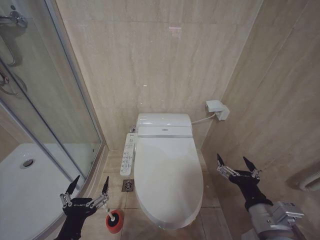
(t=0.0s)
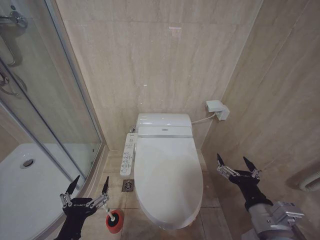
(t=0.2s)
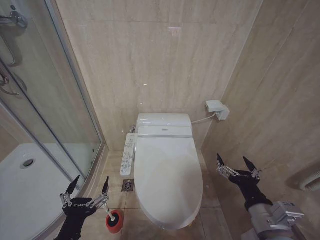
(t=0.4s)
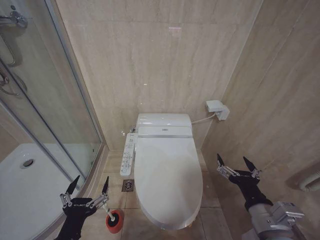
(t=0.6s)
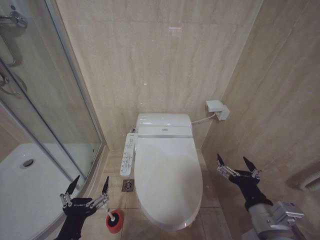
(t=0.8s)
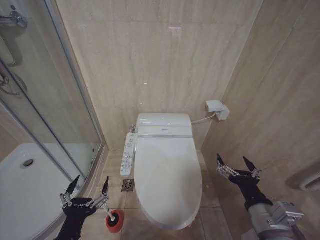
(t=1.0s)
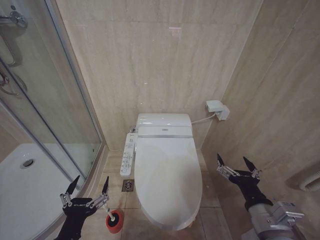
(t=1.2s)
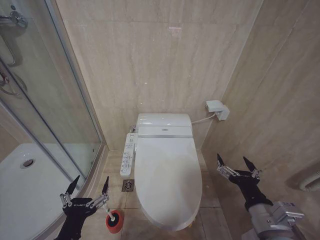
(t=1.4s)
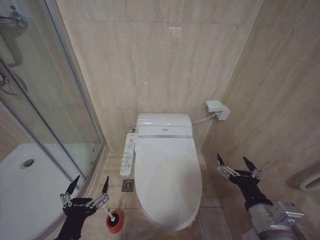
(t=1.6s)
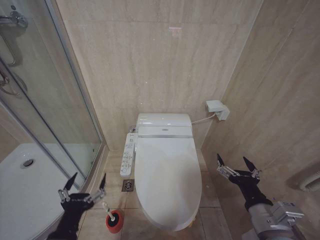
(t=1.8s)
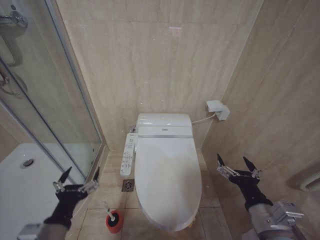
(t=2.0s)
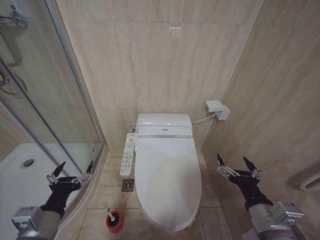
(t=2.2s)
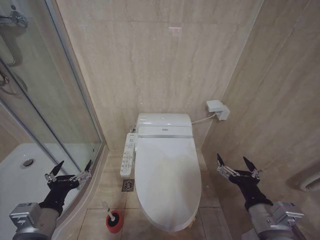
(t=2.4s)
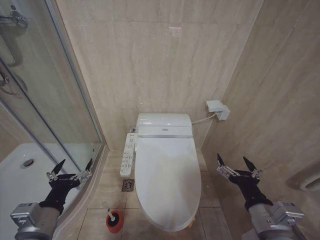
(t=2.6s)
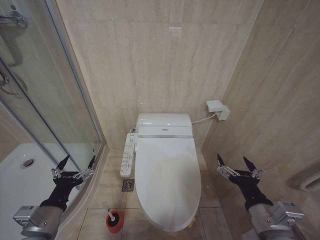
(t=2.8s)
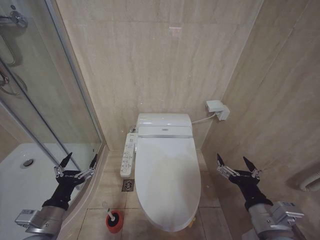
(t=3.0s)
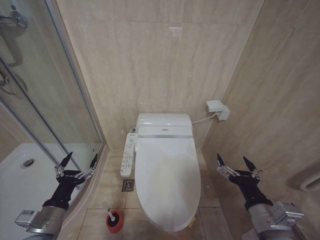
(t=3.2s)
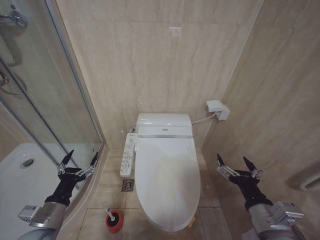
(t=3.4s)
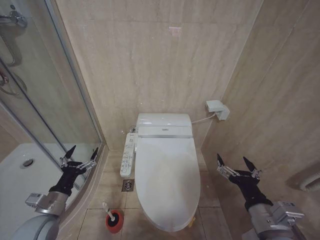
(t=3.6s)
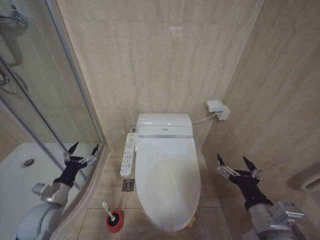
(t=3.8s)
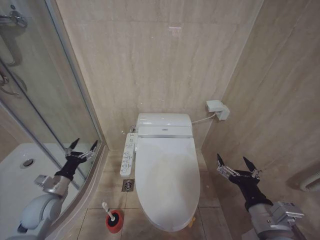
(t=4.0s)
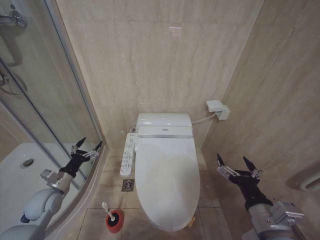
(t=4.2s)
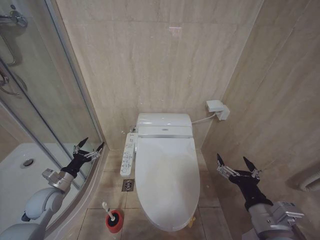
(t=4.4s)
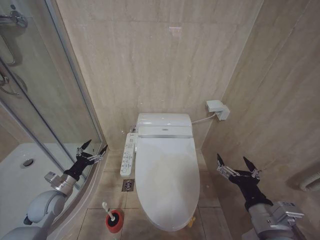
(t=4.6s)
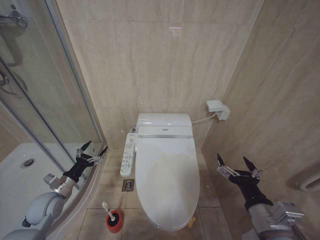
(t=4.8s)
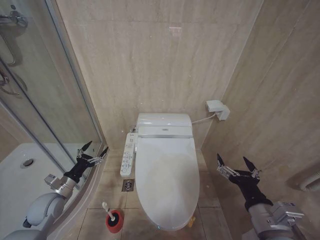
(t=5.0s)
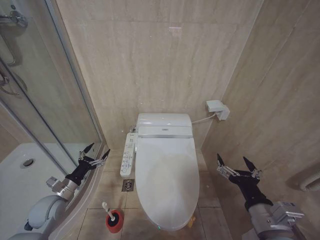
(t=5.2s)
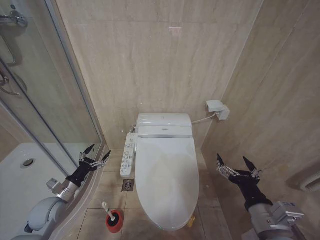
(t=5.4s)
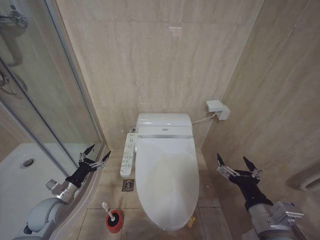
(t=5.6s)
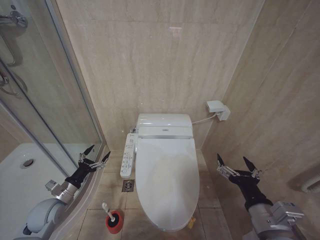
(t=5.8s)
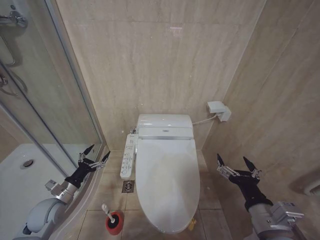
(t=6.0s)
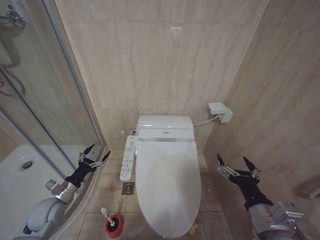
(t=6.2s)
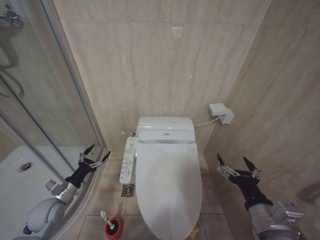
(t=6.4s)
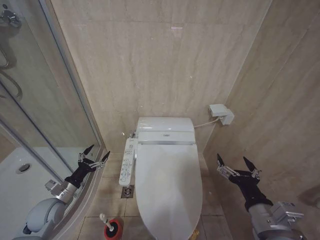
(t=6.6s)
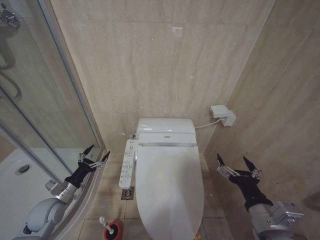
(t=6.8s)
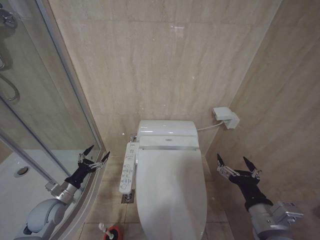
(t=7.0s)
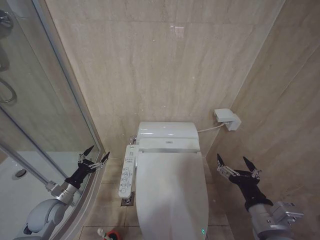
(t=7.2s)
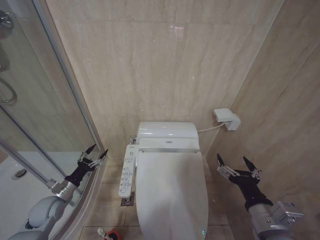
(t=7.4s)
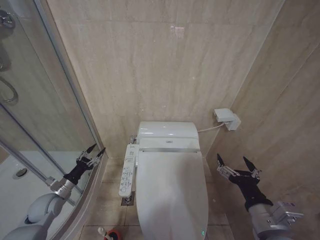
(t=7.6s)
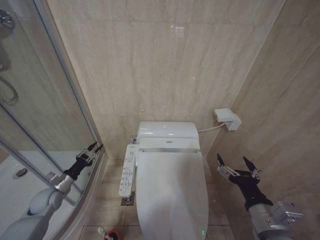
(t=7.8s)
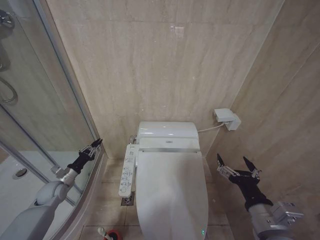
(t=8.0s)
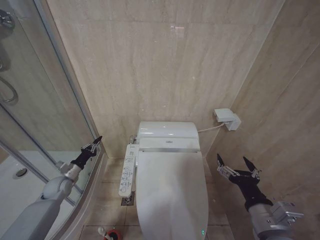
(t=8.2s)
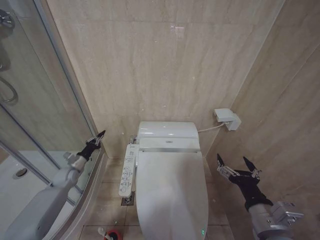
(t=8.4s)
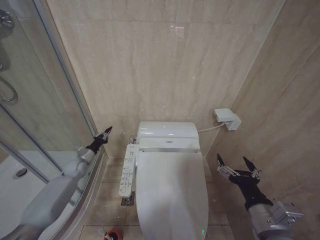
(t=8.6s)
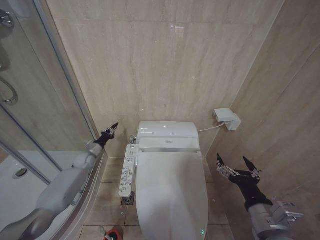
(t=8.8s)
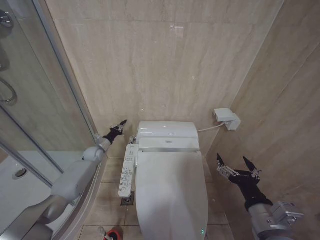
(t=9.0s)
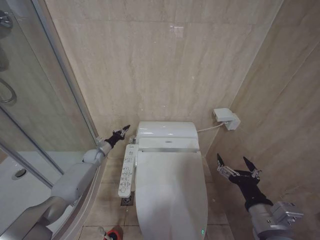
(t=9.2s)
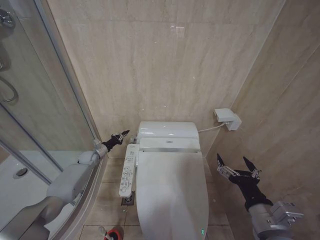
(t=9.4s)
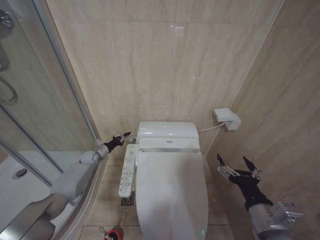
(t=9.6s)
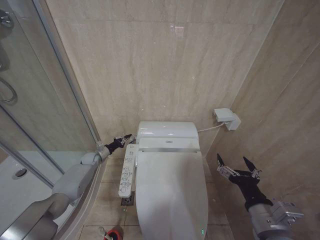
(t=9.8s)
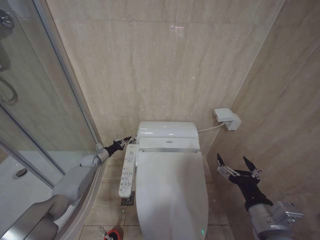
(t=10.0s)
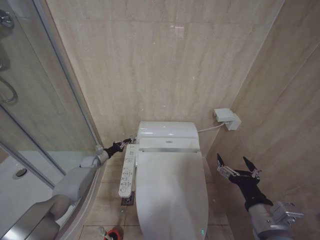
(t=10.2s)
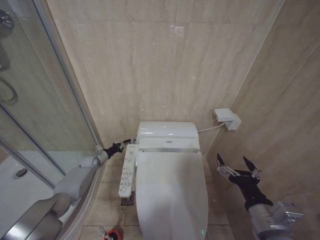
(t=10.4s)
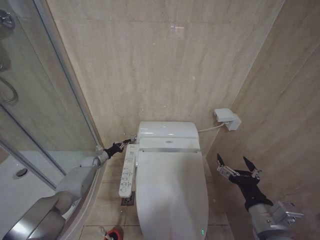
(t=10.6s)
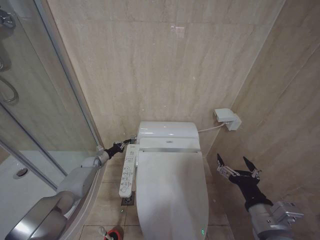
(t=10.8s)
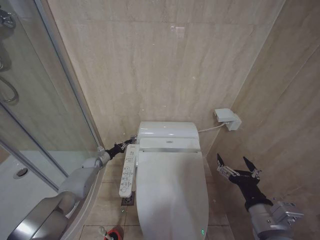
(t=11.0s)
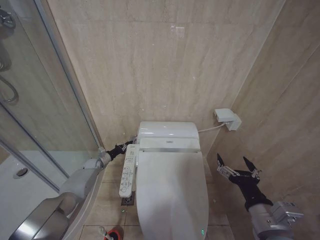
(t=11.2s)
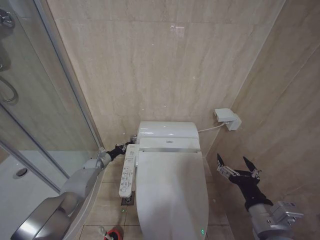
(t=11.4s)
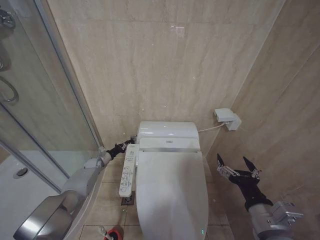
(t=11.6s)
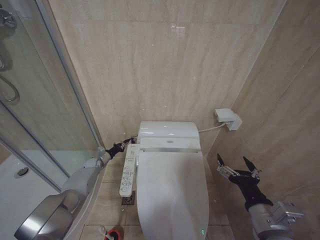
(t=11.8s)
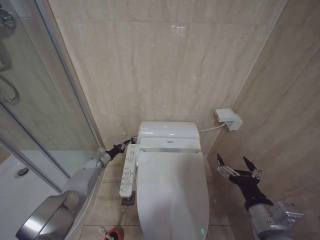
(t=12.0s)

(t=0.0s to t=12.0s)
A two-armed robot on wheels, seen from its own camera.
Task of the whole recording: Open the toilet lid, clean the toilet bowl with a toilet brush, close the toilet lid, and flush.
t=0.0s - t=1.6s: Both grippers stay about where they are.
t=1.6s - t=3.0s: The left gripper shifts roughly 10 cm forward and to the left.
t=3.0s - t=4.4s: The left gripper travels forward, to the left and downward by about 20 cm.
t=4.4s - t=7.6s: The grippers stay close to where they were, moving slightly.
t=7.6s - t=9.0s: The left gripper is displaced forward by roughly 25 cm, and closes up.
t=9.0s - t=10.4s: The left gripper travels downward by some 5 cm.
t=10.4s - t=12.0s: The grippers make only small movements.

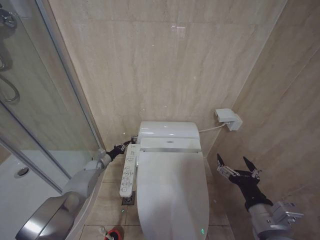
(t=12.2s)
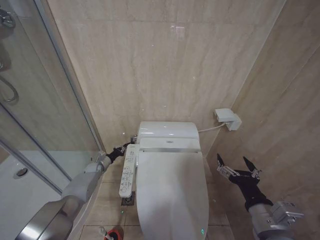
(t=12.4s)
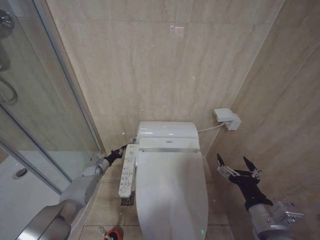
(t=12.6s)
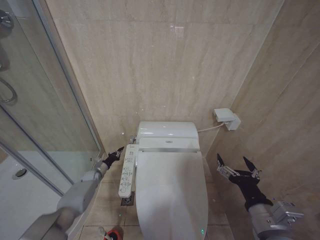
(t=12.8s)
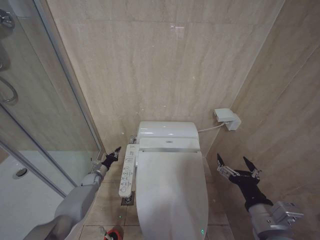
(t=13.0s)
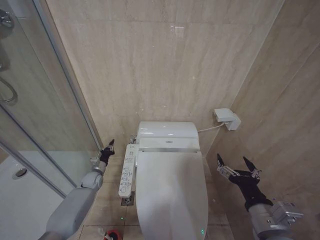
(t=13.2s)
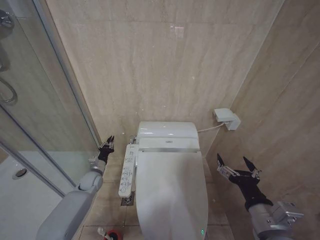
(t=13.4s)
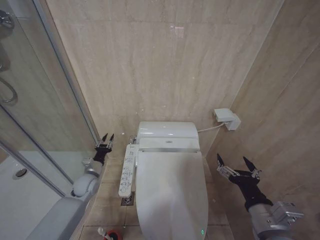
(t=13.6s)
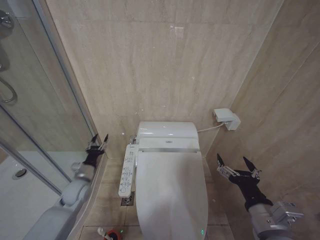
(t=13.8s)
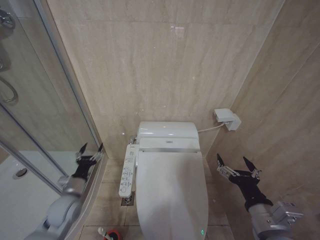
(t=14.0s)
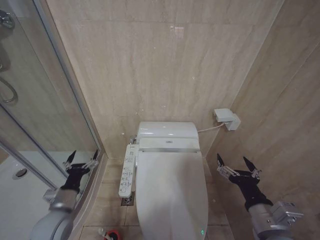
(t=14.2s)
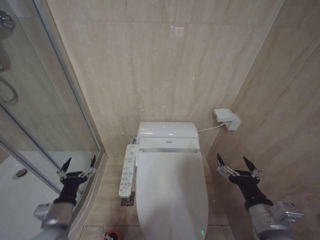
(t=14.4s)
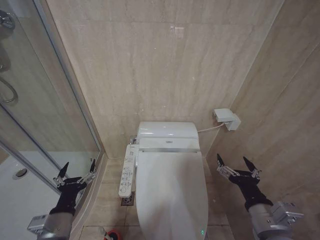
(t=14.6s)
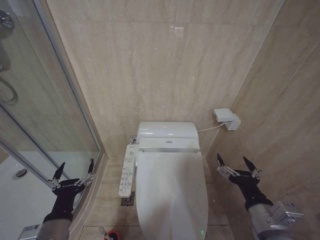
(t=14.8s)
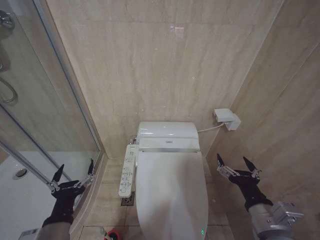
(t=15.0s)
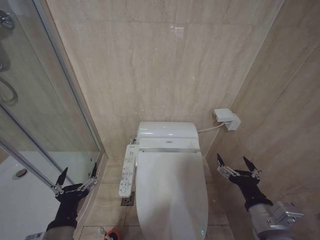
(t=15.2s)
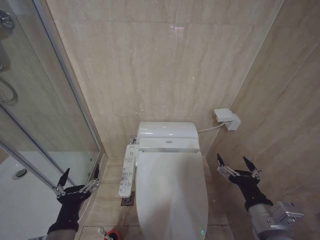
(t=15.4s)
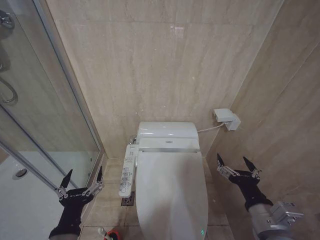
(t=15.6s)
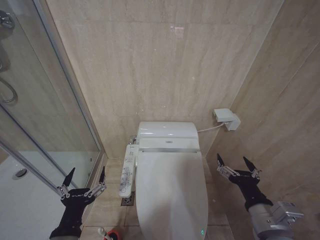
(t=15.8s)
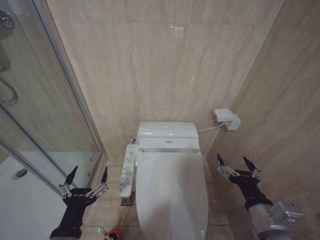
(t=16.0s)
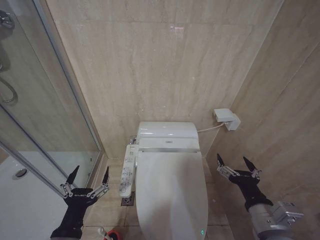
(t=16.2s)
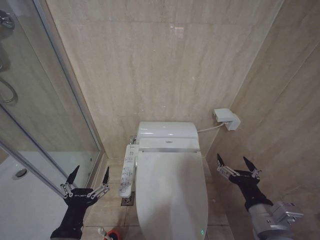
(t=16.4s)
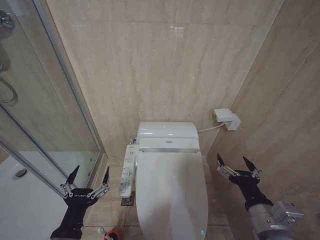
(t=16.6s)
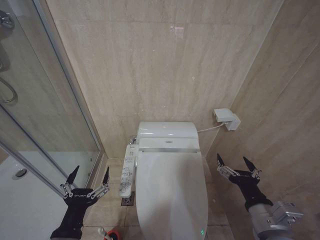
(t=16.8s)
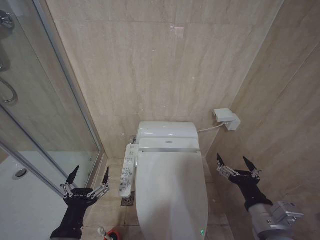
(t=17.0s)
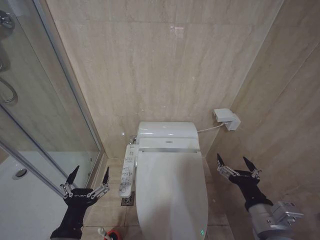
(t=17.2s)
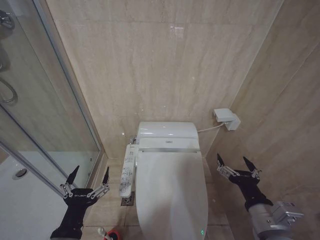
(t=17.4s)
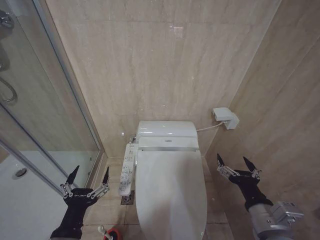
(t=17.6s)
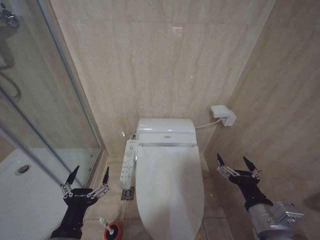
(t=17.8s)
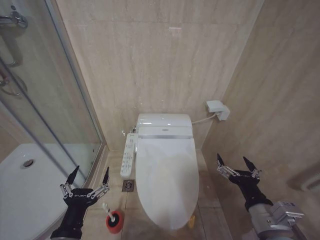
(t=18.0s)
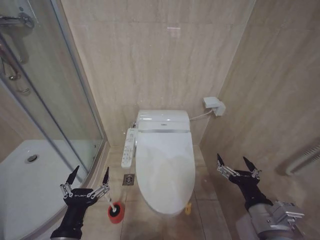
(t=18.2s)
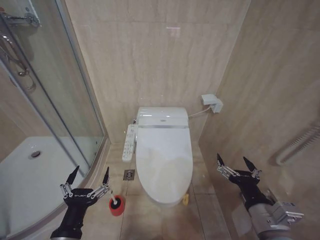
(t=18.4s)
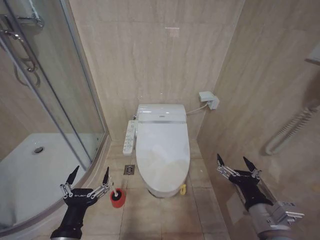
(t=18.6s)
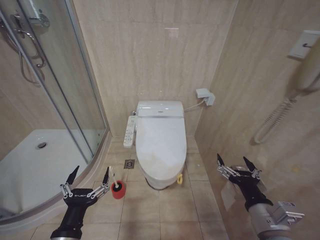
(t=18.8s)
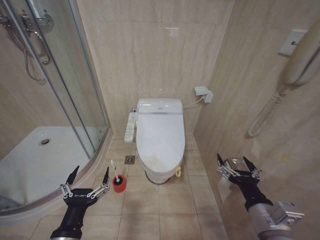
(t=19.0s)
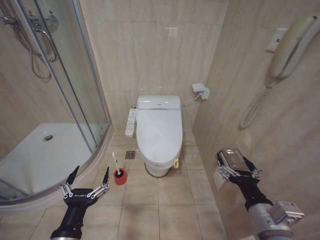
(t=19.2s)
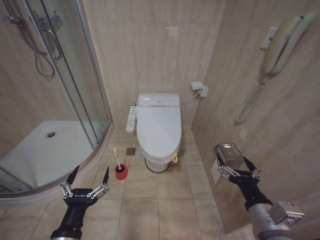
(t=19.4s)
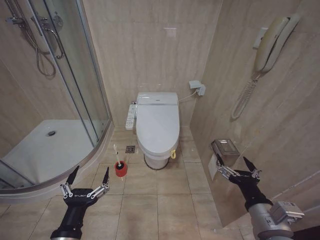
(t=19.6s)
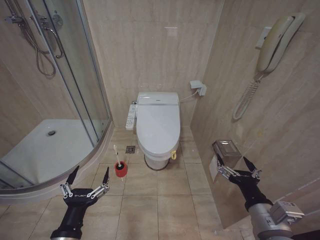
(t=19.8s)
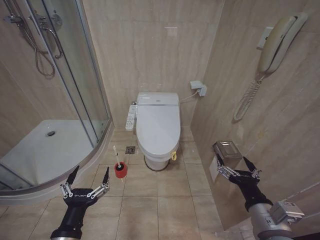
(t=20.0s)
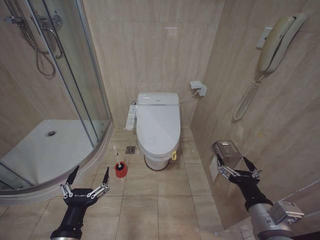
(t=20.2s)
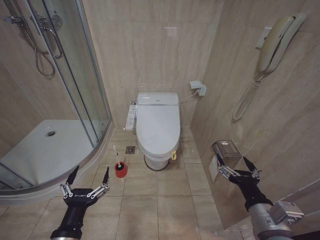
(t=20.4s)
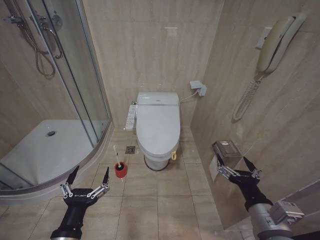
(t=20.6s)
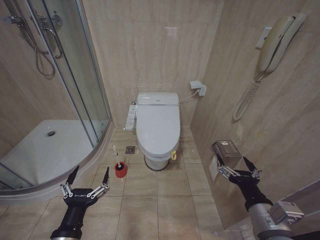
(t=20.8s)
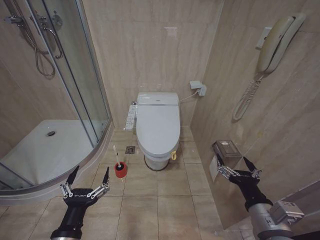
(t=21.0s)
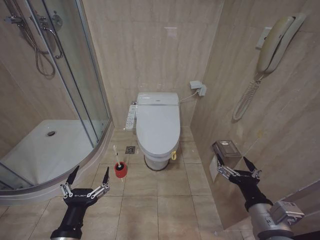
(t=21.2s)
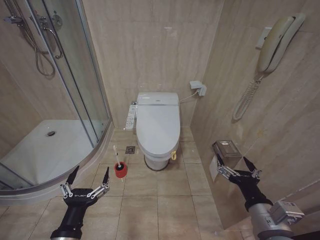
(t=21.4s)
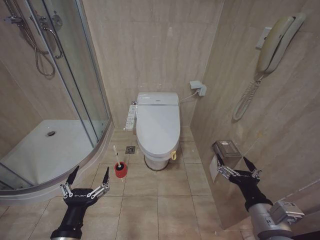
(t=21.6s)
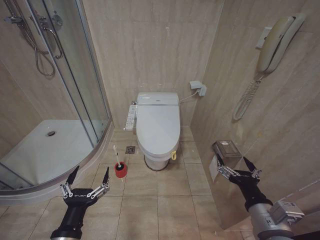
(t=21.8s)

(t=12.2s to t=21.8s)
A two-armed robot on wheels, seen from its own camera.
Task of the whole recording: Open the toilet lid, clean the toilet bowl with a toilet brush, close the toilet lid, and flush.
t=12.2s - t=13.8s: The left gripper shifts some 20 cm backward and upward.
t=13.8s - t=15.4s: The left gripper travels backward by approximately 25 cm, and opens up.
t=15.4s - t=17.0s: There are only small adjustments of the grippers.
t=20.2s - t=21.8s: Both grippers stay about where they are.
